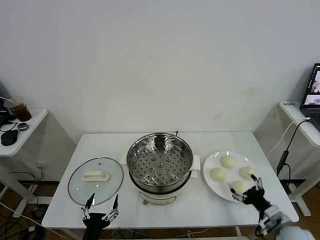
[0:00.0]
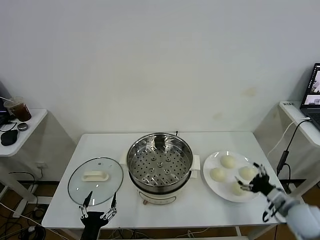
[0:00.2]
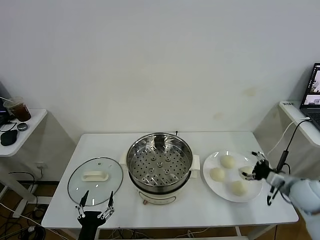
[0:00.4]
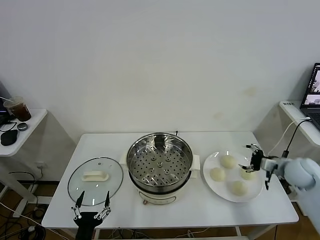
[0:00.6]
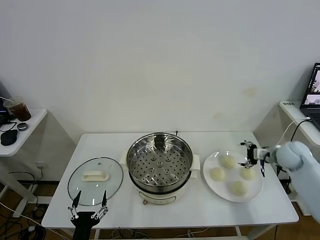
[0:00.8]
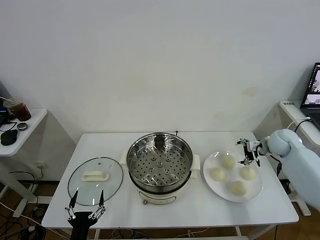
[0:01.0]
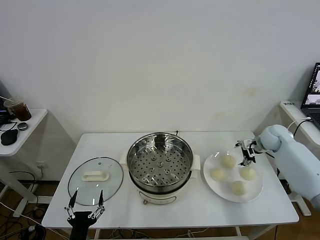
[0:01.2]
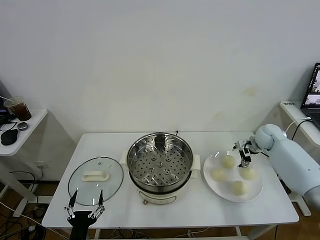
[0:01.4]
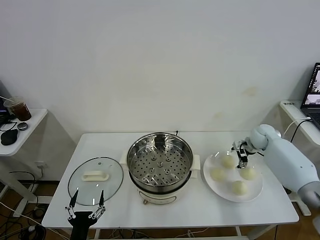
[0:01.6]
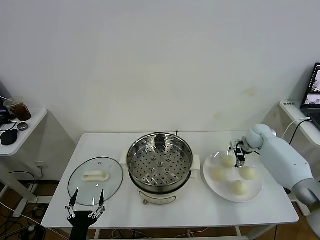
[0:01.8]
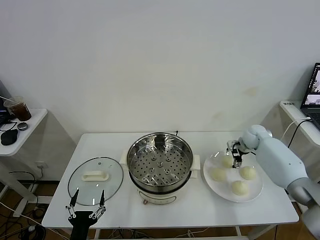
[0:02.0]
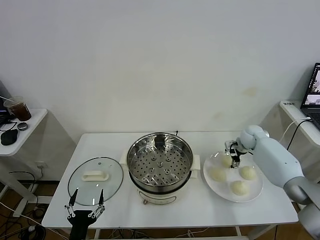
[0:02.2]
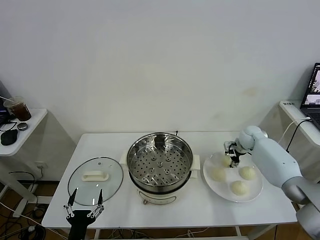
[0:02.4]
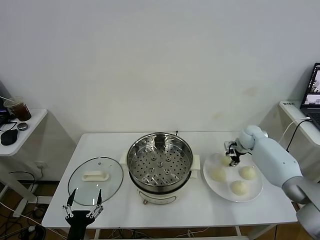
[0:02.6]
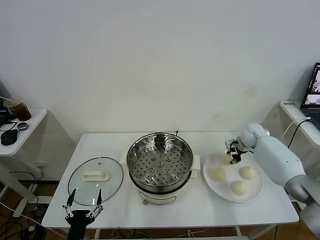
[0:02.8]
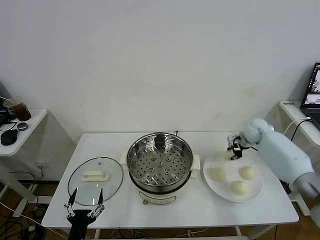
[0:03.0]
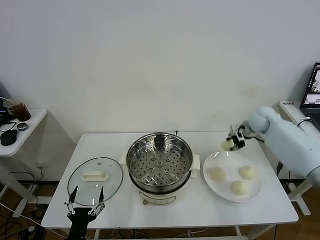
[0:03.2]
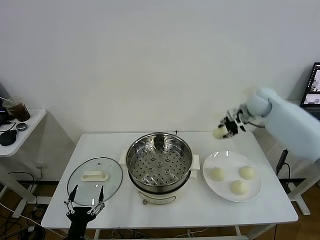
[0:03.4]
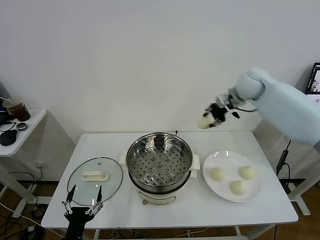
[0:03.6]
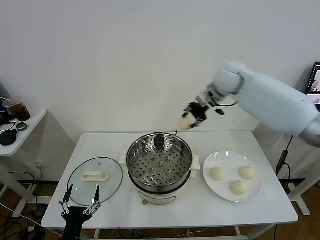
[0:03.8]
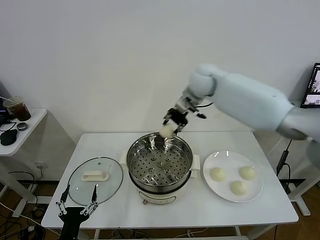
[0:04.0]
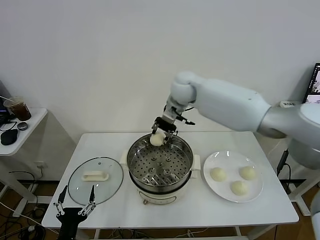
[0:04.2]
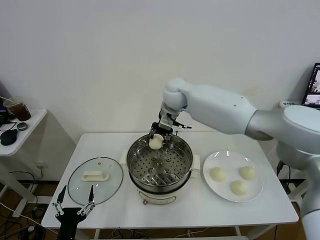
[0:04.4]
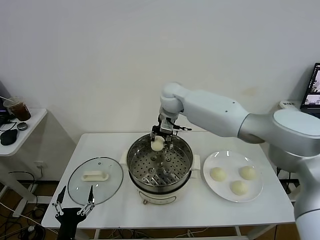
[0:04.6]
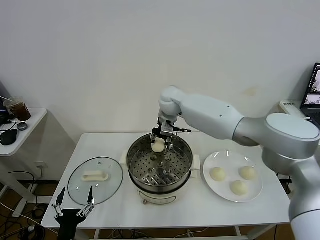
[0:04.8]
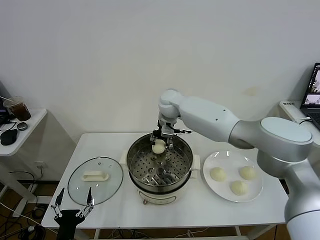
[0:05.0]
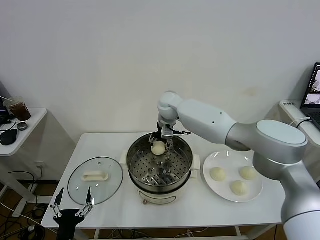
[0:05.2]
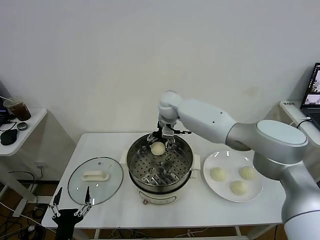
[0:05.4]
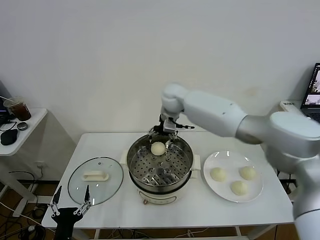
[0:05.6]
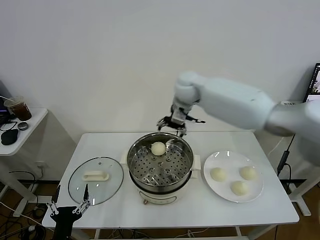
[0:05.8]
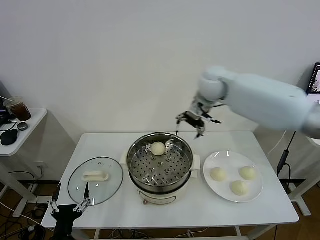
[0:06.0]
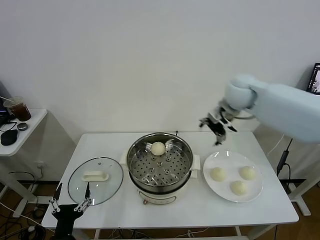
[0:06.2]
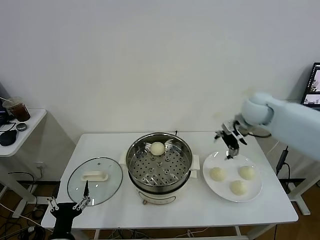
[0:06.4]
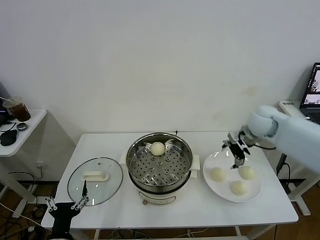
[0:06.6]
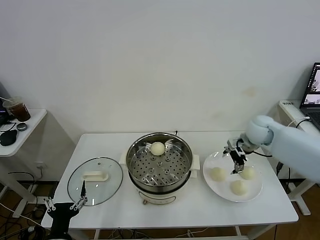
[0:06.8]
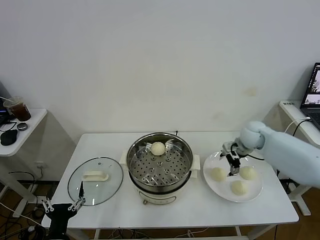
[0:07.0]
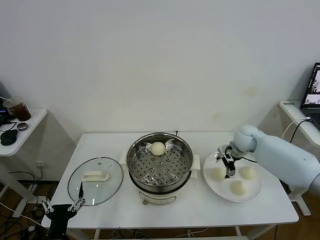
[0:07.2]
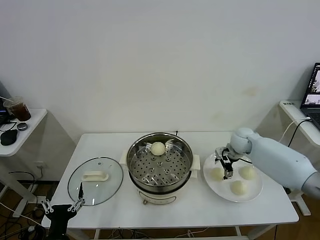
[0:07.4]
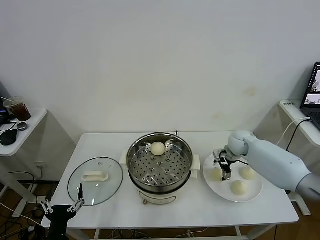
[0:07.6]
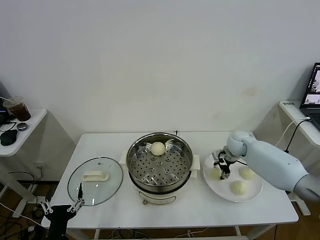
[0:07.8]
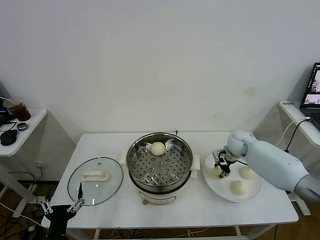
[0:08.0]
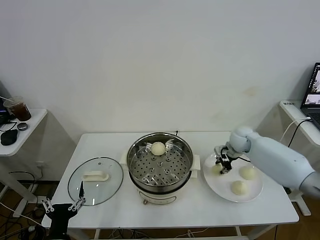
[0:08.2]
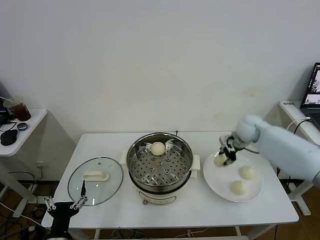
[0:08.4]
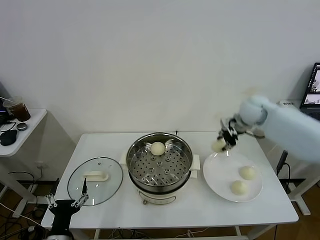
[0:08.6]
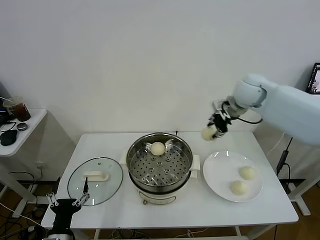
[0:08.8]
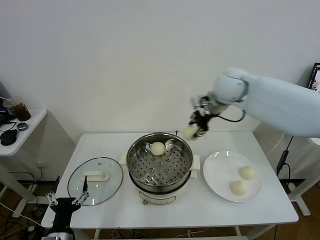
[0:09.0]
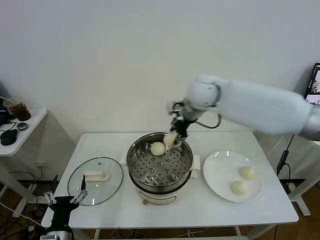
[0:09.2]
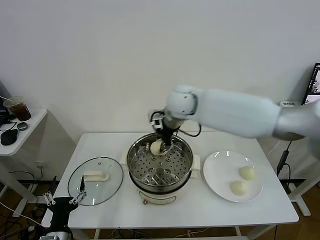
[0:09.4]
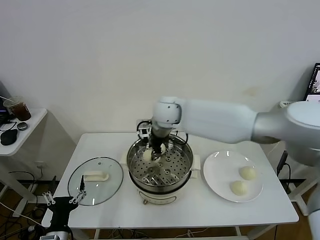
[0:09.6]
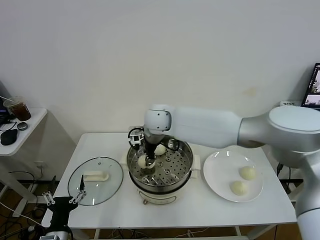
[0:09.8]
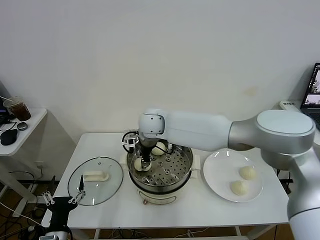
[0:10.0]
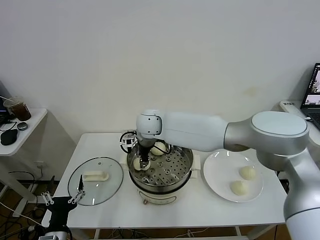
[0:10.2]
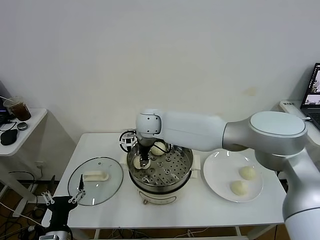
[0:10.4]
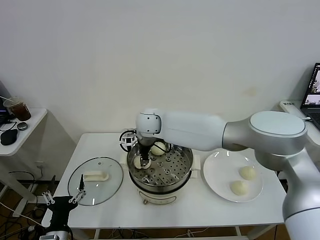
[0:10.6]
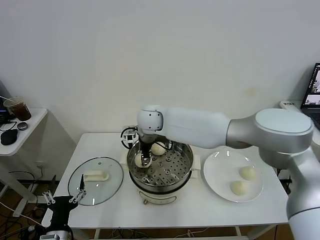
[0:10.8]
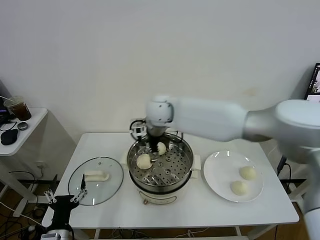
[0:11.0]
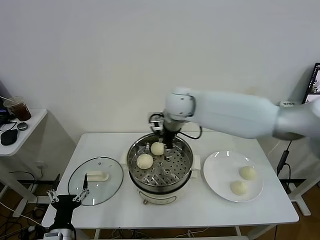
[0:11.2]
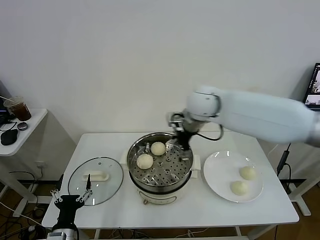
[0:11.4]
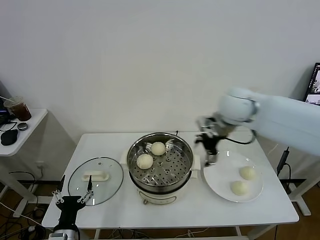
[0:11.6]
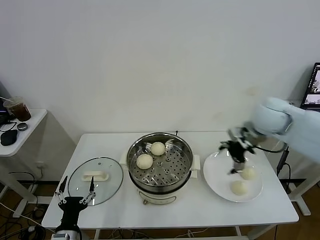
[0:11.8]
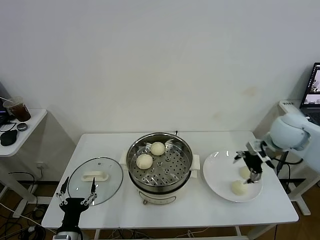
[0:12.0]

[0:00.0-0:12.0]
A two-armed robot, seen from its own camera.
Task of the whole recording: take steamed baozi put them in steamer.
Step, 0:00.0 to 0:02.6: Grasp the baozi in the plate with right gripper.
Step, 0:02.8 to 0:05.6: Place the baozi on the steamer with right gripper.
Step, 0:05.8 to 0:08.0: Grasp the baozi in the plate with right gripper.
Step, 0:08.2 to 0:11.0: Place the baozi on the steamer with right gripper.
0:01.6 to 0:03.0: The right gripper closes its fingers.
0:03.0 to 0:04.4: The right gripper heads to the left and upward, covering some 35 cm.
0:04.4 to 0:06.0: The right gripper travels to the right by approximately 15 cm, and opens up.
0:06.0 to 0:07.6: The right gripper moves downward and to the right, approximately 30 cm.
0:07.6 to 0:09.0: The right gripper travels upward and to the left by about 30 cm, and closes.
0:09.0 to 0:10.4: The right gripper shifts some 25 cm to the left and downward.
0:10.4 to 0:12.0: The right gripper is displaced to the right by roughly 40 cm, and opens.

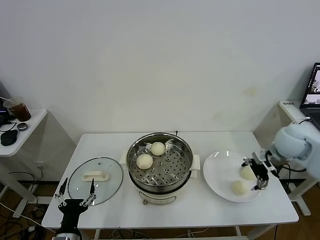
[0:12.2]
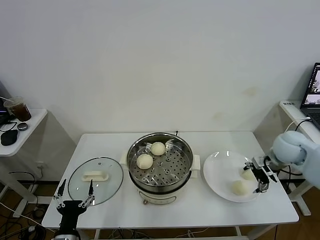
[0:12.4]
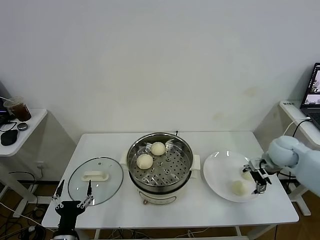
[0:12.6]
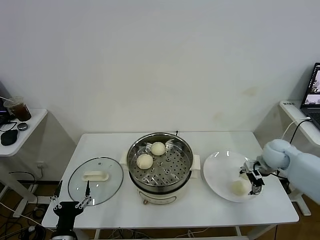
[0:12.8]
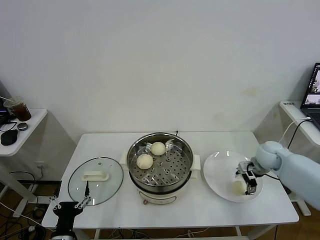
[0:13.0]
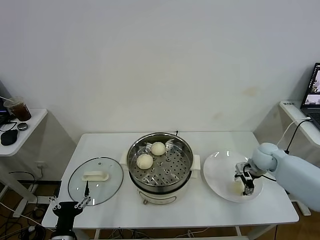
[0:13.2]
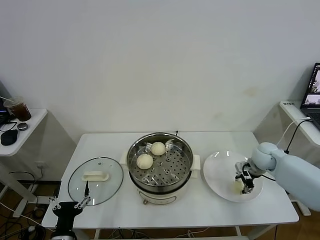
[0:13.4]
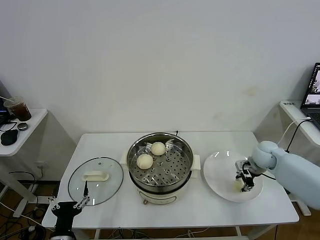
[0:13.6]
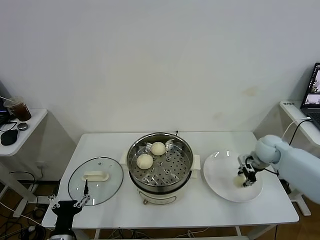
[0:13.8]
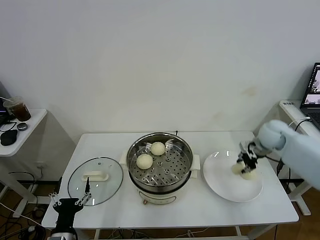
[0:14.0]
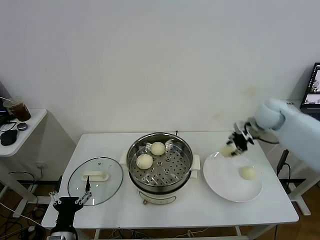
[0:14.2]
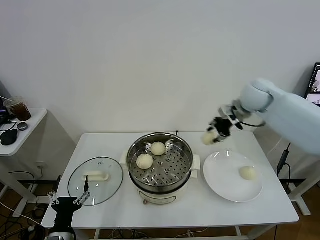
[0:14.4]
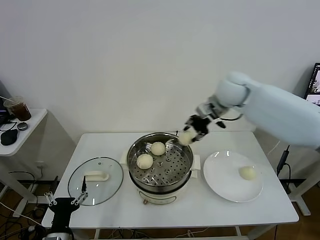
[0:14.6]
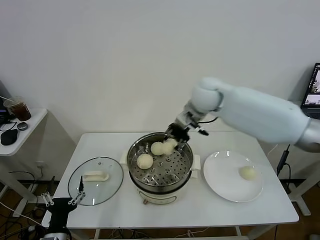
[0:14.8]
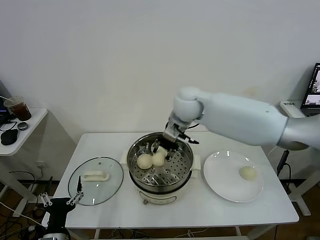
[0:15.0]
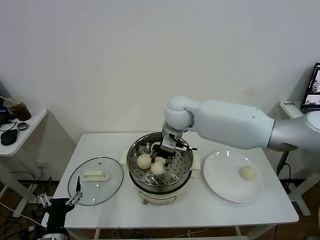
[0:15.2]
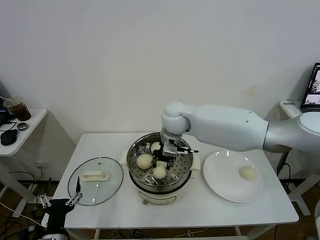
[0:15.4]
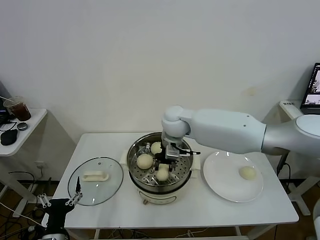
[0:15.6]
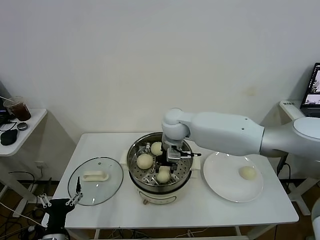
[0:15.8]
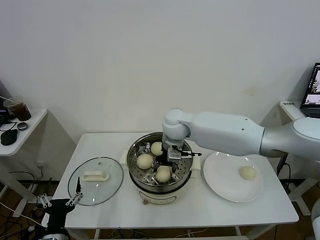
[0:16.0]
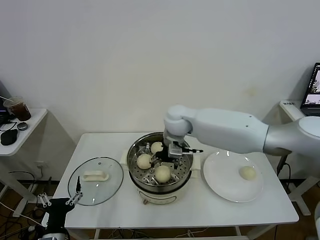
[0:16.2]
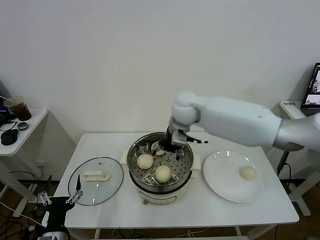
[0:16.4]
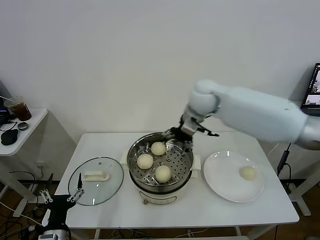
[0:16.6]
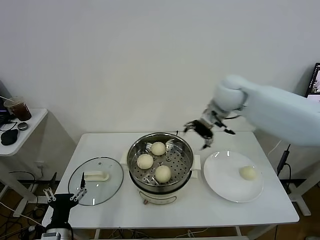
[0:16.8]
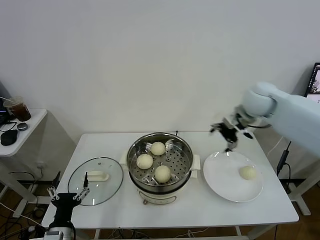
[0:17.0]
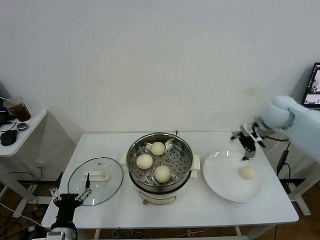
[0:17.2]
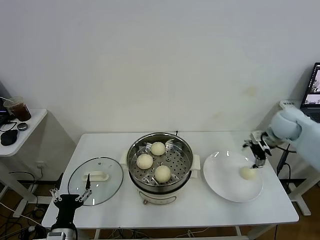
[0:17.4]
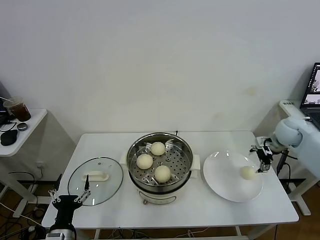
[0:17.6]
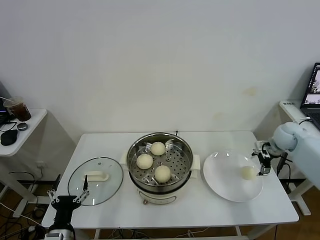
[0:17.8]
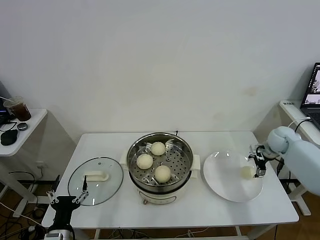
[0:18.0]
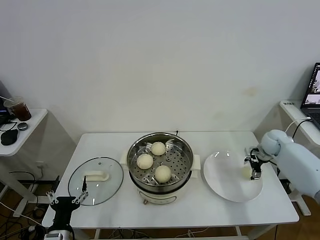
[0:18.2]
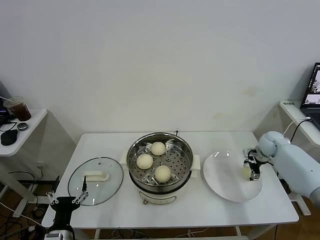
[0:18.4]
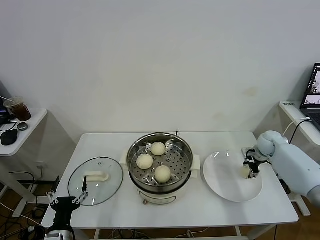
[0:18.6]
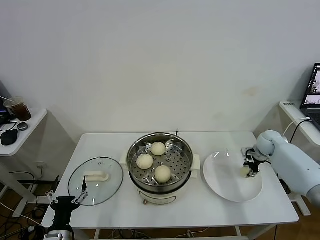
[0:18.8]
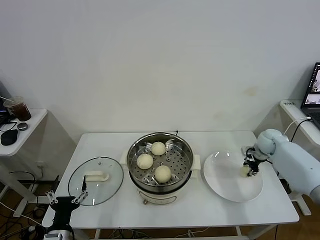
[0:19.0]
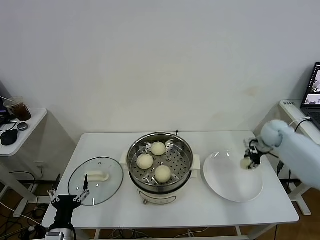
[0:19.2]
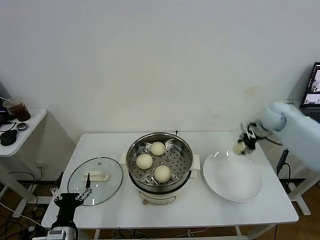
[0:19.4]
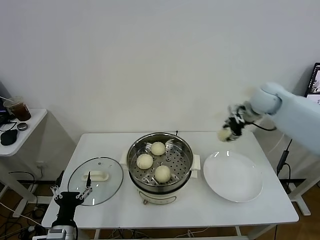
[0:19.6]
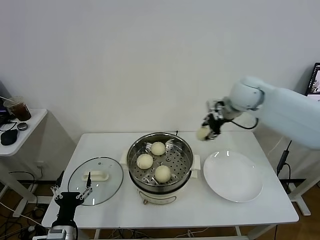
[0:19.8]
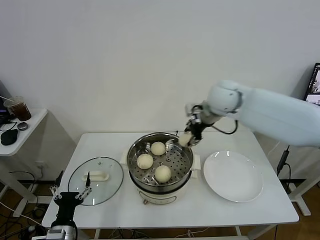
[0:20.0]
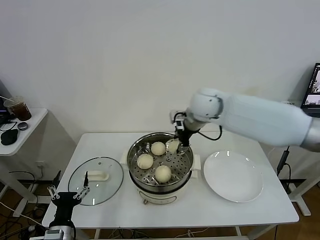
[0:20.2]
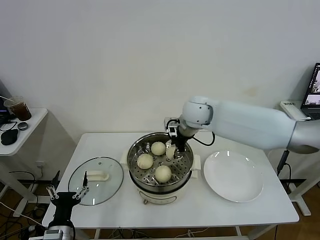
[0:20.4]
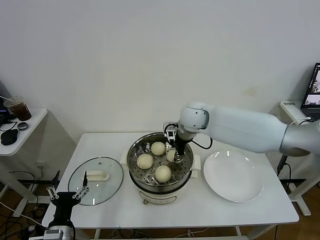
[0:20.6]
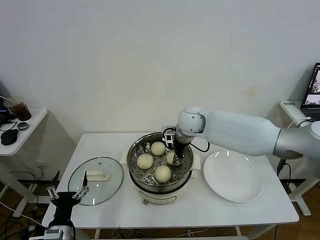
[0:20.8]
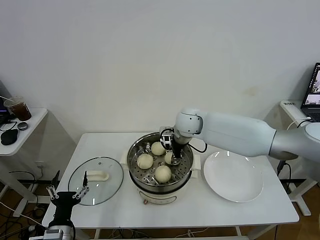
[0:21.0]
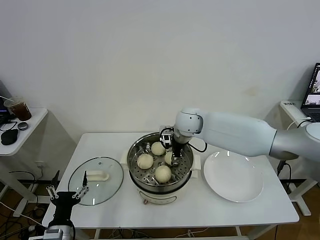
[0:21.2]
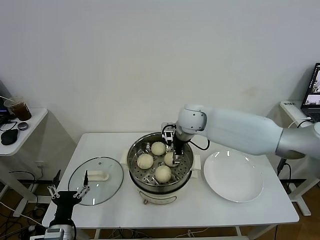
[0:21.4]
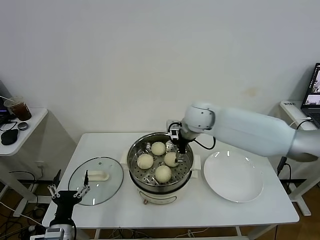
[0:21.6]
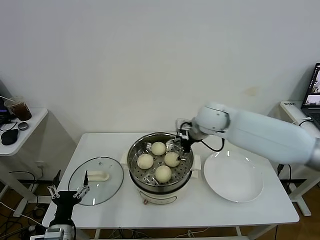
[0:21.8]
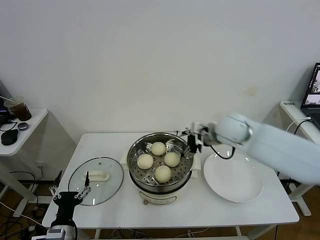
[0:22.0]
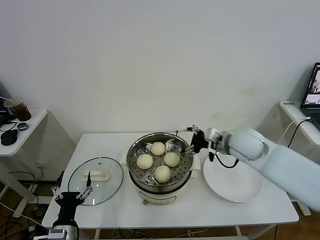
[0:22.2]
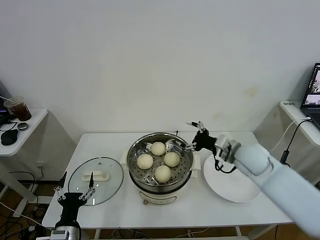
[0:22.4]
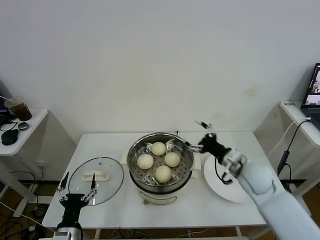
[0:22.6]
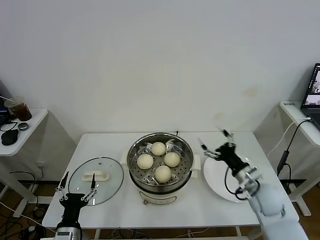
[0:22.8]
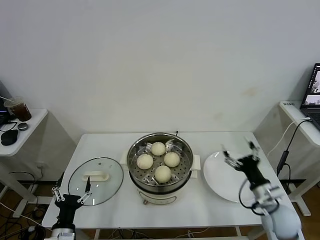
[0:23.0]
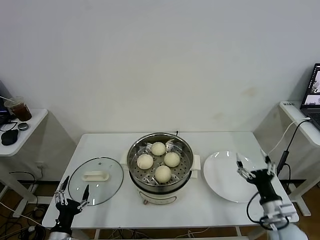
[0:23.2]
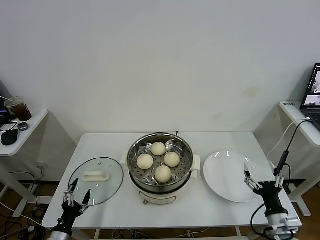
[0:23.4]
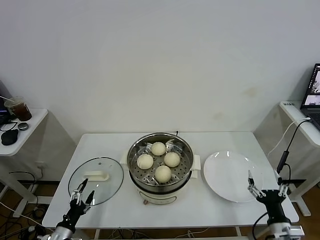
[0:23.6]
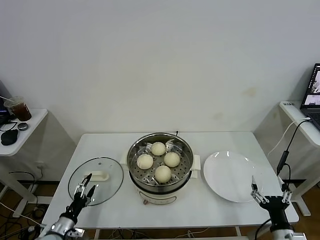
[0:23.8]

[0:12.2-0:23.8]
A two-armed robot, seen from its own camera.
Task of the whole recording: take steamed baozi put them in steamer.
Step, 0:12.2 to 0:13.4: Grasp the baozi in the plate with right gripper.
Step, 0:13.6 to 0:16.2: Place the baozi on the steamer with right gripper.
Step, 0:16.4 to 0:18.8: Grasp the baozi in the plate with right gripper.
Step, 0:19.0 to 0:21.6: Place the baozi on the steamer with right gripper.
0:12.2 to 0:13.6: The right gripper moves downward, some 10 cm, and closes.
0:13.6 to 0:15.0: The right gripper shifts some 35 cm to the left and upward.
0:15.0 to 0:16.6: The right gripper moves about 5 cm downward and comes back, and opens.
0:16.6 to 0:18.0: The right gripper heads to the right and downward, covering roughly 40 cm.
0:18.0 to 0:19.4: The right gripper heads upward and to the left, covering about 10 cm, and closes.
0:19.4 to 0:21.0: The right gripper moves to the left, approximately 30 cm.
0:21.0 to 0:22.4: The right gripper moves to the right and backward, approximately 20 cm, and opens up.
0:22.4 to 0:23.8: The left gripper shifts roughly 10 cm to the left and downward; the right gripper goes approximately 30 cm backward and downward.
